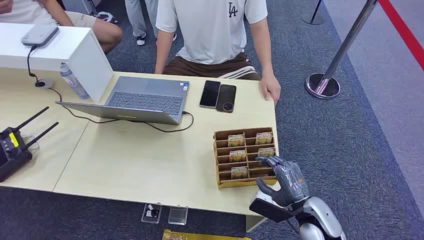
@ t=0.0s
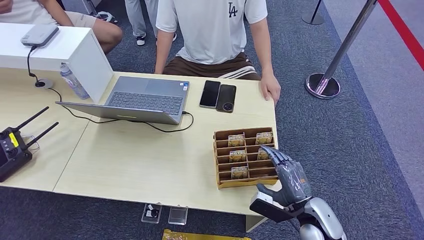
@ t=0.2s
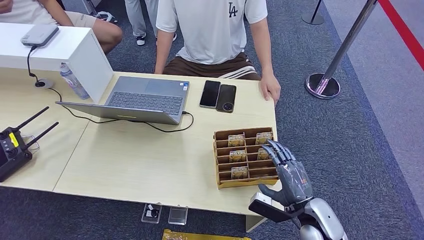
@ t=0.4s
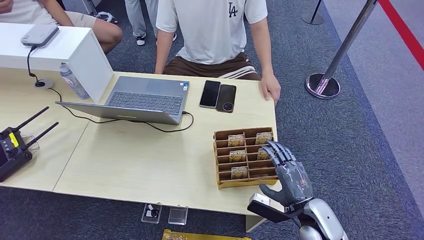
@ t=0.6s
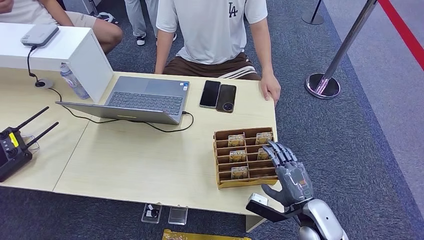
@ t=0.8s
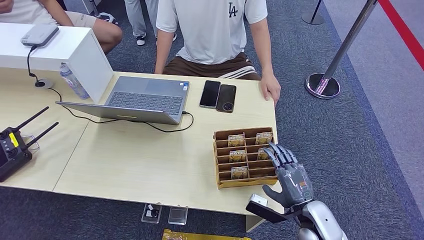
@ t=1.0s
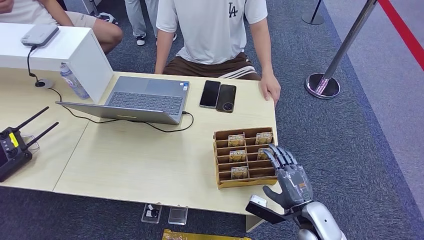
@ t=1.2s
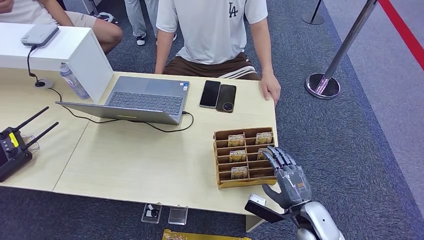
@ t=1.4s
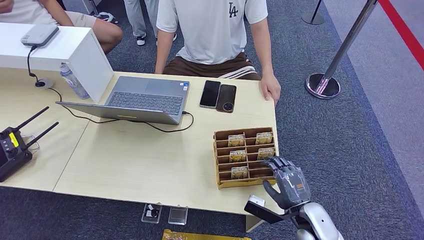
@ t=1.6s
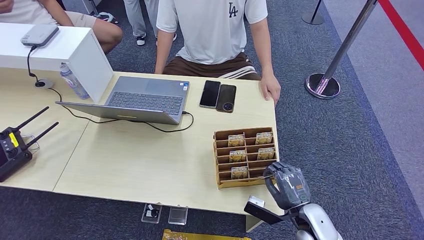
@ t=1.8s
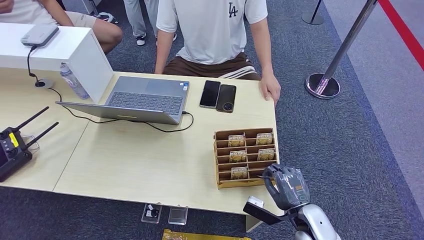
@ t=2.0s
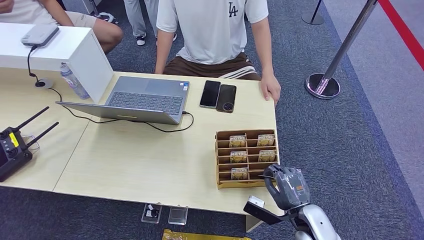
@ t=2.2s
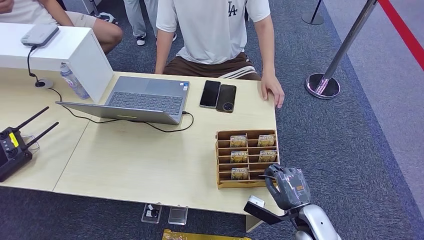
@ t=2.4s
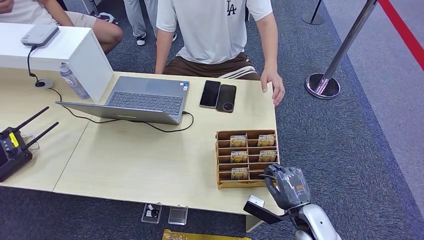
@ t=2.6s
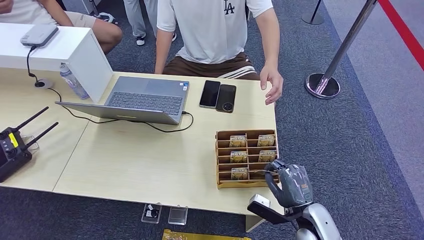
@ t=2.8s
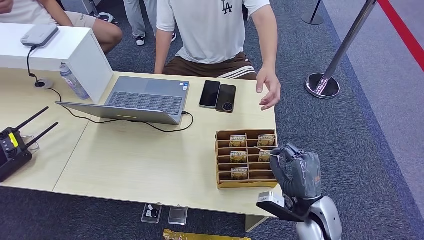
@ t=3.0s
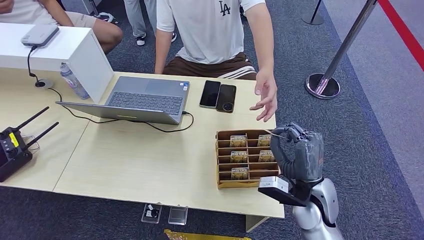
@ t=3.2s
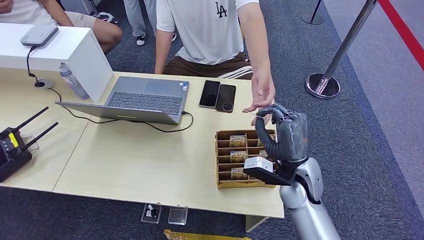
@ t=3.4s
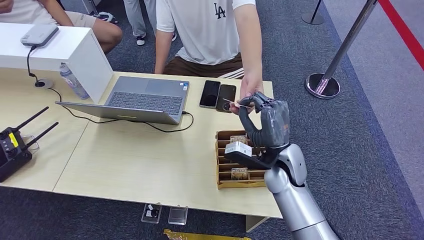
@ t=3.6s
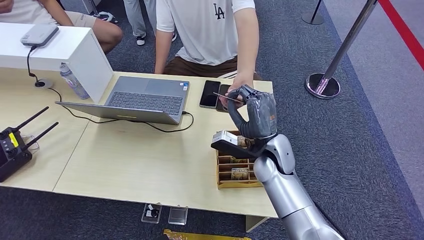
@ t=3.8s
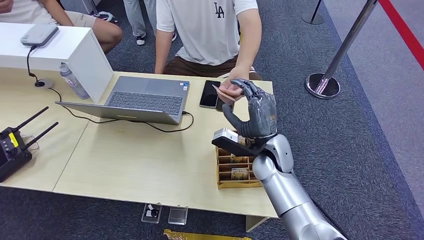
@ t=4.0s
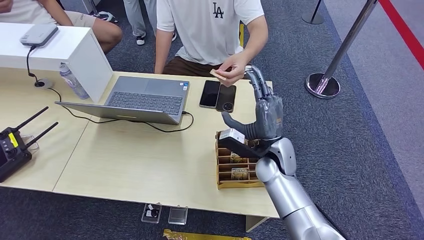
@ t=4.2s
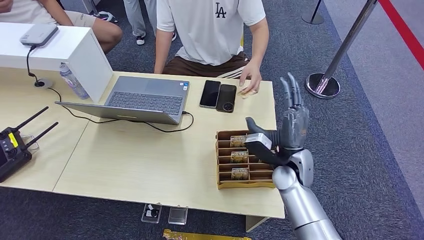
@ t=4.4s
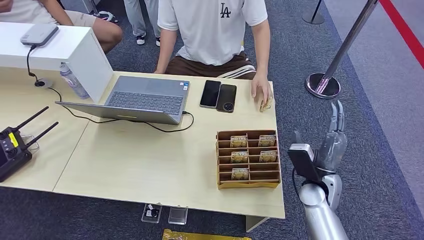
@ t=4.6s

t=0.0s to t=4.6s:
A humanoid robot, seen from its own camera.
Step, t=0.0s to t=2.8s: Pick up the key card from the card box.
Step, t=3.0s to t=4.4s: Hand the key card to the target.
t=3.0s to t=4.6s: The right hand moves forward, about 5 cm, and travels to the left and back again, about 10 cm each way.
